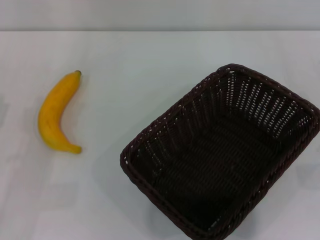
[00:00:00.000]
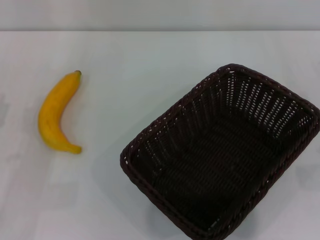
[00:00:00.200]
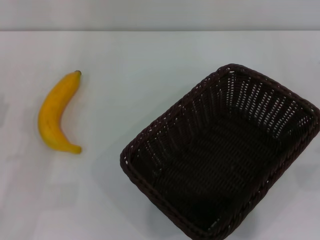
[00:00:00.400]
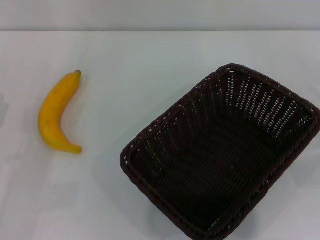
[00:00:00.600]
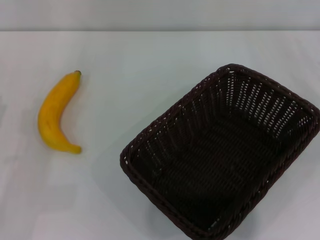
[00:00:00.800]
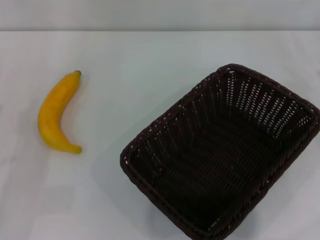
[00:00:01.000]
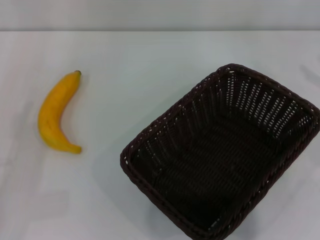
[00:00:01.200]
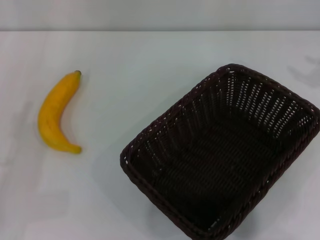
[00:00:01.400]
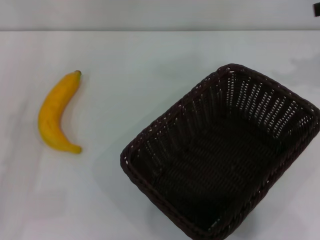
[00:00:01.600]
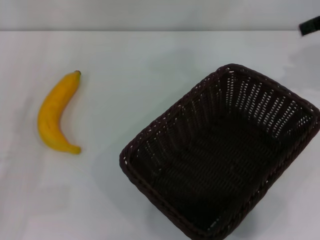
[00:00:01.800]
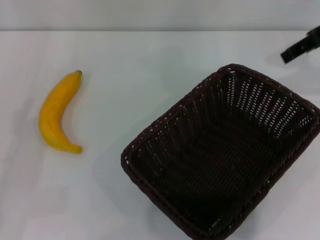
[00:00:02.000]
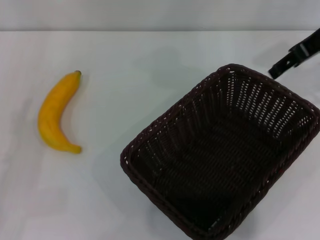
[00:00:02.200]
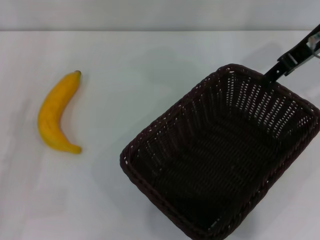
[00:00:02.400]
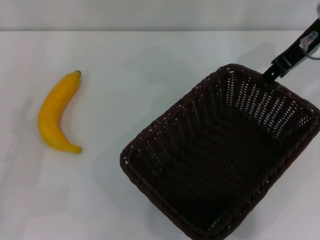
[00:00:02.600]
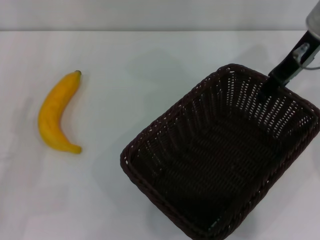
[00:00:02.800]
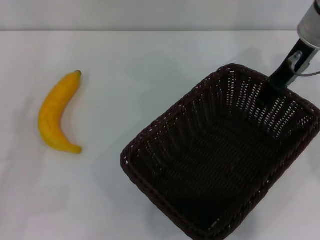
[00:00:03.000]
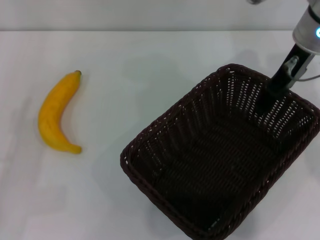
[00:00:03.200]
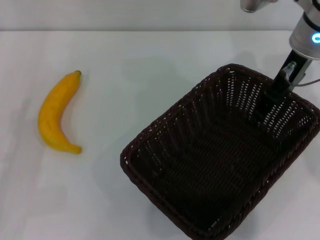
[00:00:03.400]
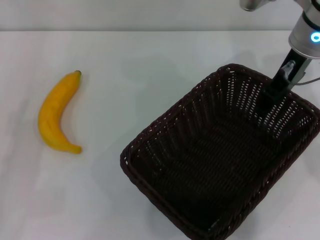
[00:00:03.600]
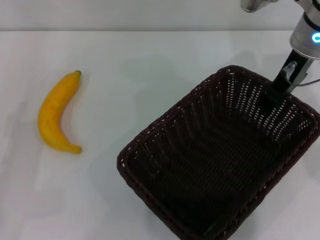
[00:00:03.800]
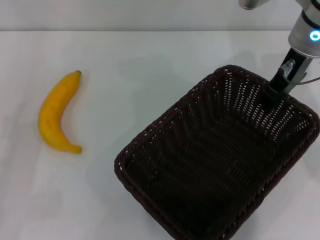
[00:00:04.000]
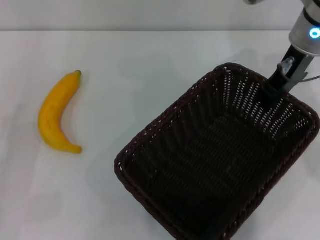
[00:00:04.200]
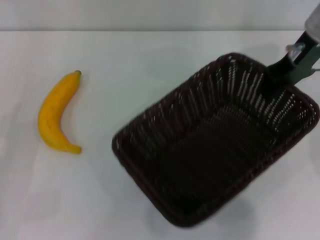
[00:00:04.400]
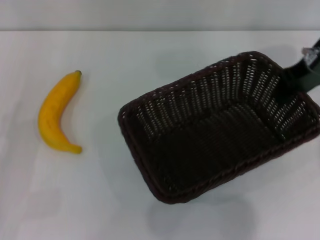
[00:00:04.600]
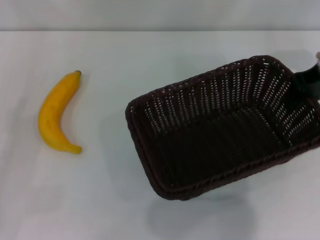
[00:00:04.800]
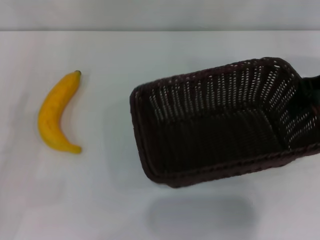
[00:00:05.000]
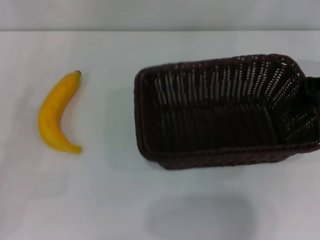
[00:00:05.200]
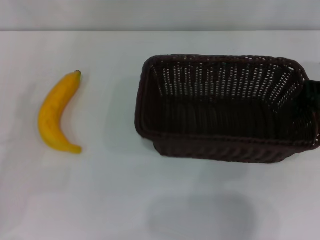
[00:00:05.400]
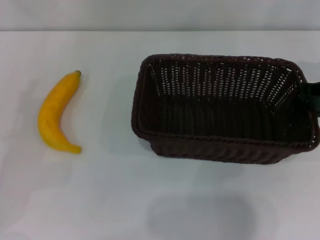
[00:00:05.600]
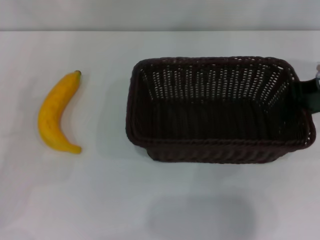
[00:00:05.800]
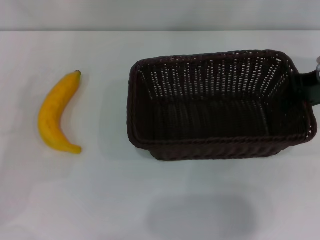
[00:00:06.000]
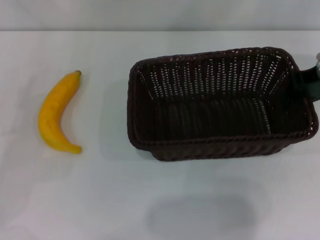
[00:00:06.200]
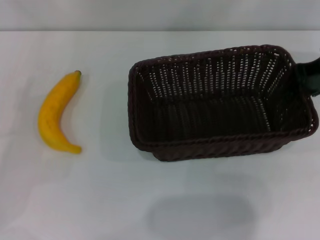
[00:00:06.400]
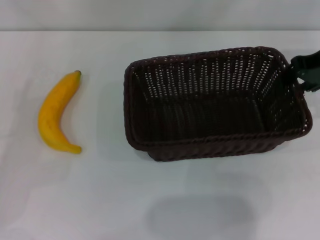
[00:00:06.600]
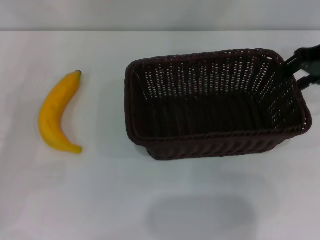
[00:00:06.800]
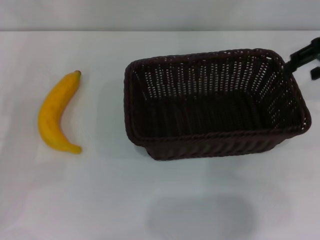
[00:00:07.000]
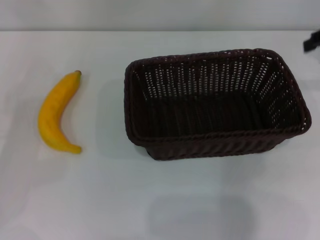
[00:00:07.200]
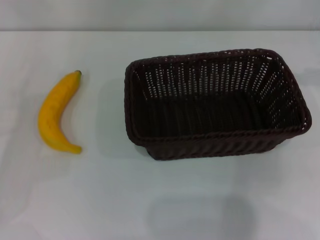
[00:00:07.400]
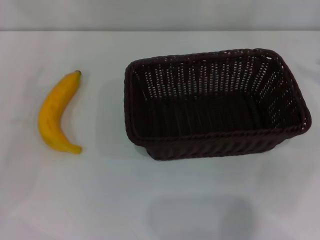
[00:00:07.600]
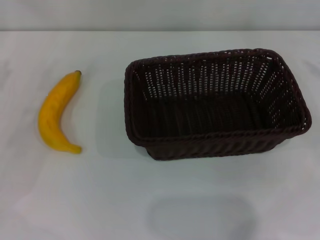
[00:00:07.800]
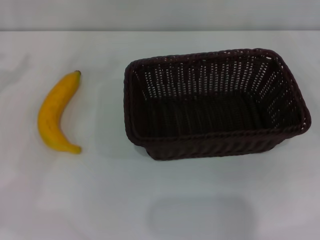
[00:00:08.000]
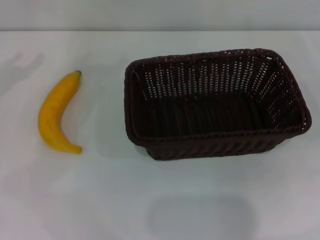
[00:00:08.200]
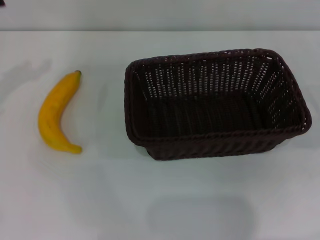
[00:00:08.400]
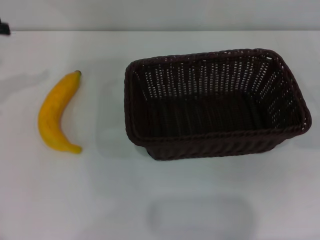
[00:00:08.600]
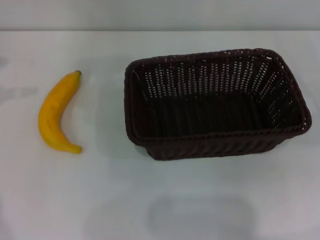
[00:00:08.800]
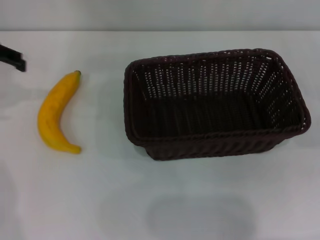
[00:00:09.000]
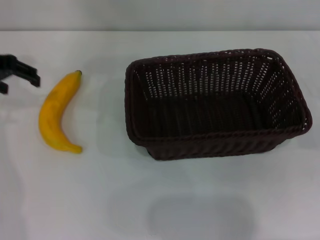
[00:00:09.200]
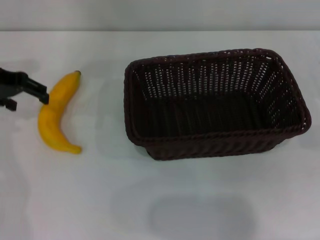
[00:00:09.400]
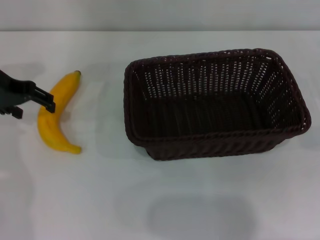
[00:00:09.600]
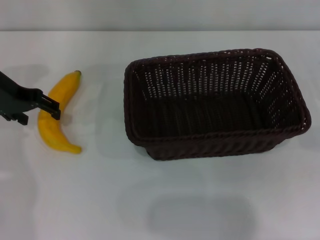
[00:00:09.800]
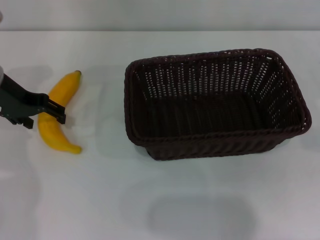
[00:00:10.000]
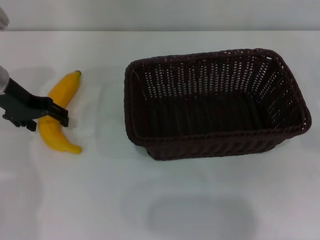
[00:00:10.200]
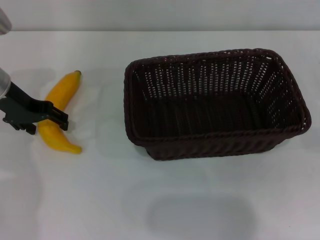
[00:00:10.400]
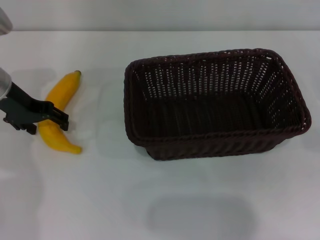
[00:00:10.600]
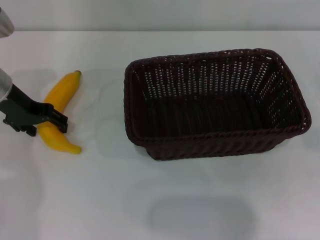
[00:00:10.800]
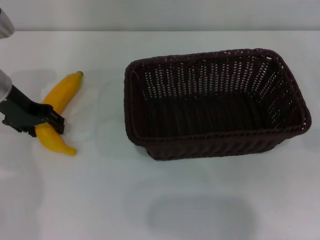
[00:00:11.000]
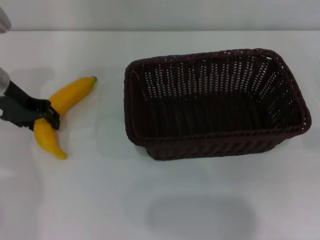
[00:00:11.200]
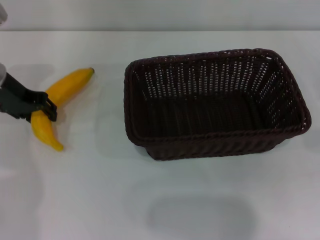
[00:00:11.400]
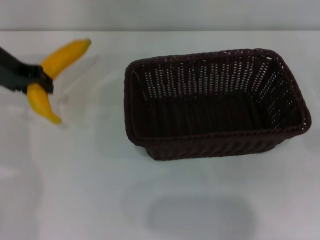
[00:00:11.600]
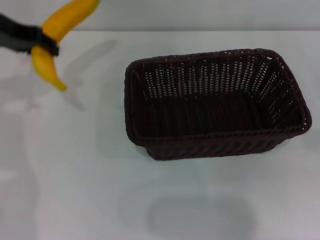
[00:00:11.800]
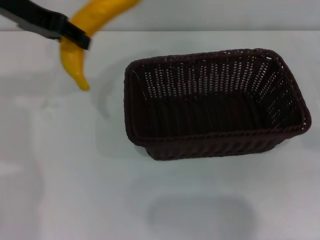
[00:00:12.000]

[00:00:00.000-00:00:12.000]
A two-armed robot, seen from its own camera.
Step, 00:00:00.000 to 00:00:04.600: Pick up the dark basket with the right gripper.
Step, 00:00:05.000 to 00:00:07.000: Place the dark basket in the center of view with the right gripper.
Step, 00:00:07.200 to 00:00:11.600: Pick up the banana with the left gripper.
00:00:01.600 to 00:00:03.000: The right gripper moves to the left, downward and forward, about 15 cm.
00:00:03.000 to 00:00:04.400: The right gripper closes its fingers.
00:00:04.400 to 00:00:06.000: The left gripper shifts some 5 cm forward. The right gripper shifts some 5 cm to the right.
00:00:06.000 to 00:00:07.600: The right gripper is displaced to the right by roughly 10 cm, and opens.
00:00:07.600 to 00:00:09.000: The left gripper travels upward, forward and to the right by approximately 20 cm.
00:00:09.000 to 00:00:10.400: The left gripper heads downward and to the right, covering some 10 cm.
00:00:10.400 to 00:00:12.000: The left gripper moves upward, approximately 15 cm, and closes up.

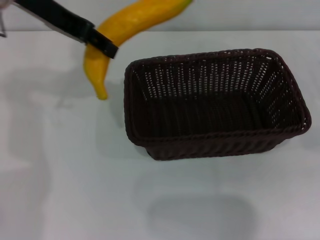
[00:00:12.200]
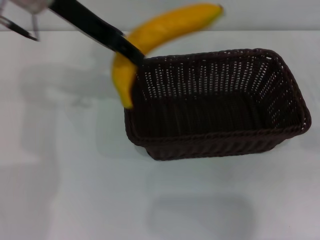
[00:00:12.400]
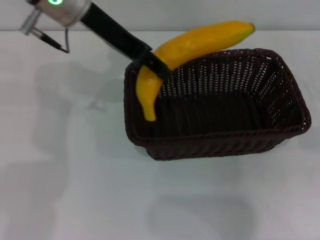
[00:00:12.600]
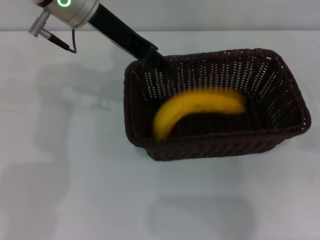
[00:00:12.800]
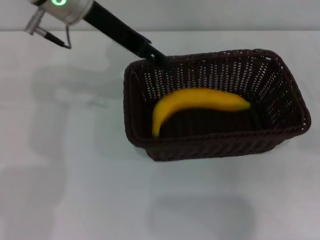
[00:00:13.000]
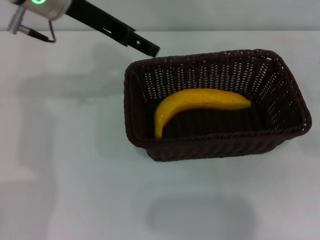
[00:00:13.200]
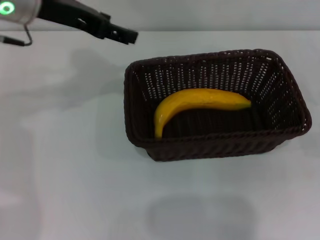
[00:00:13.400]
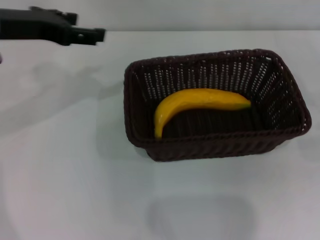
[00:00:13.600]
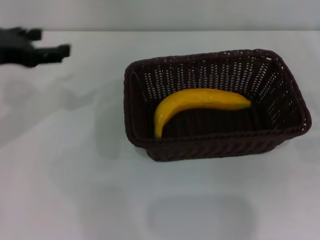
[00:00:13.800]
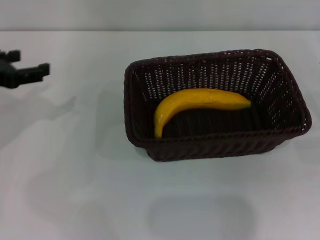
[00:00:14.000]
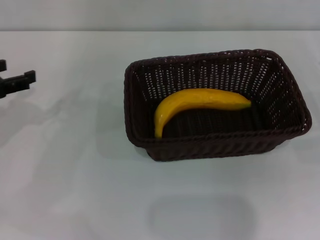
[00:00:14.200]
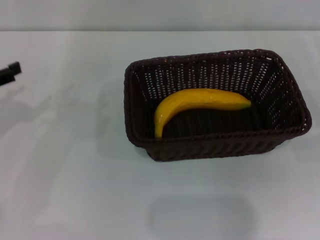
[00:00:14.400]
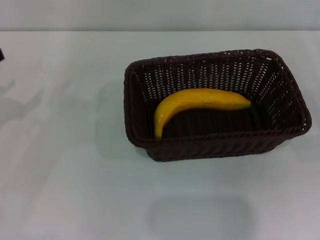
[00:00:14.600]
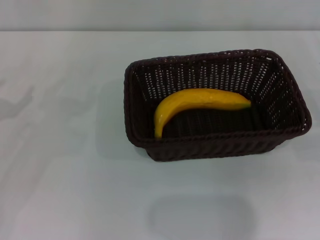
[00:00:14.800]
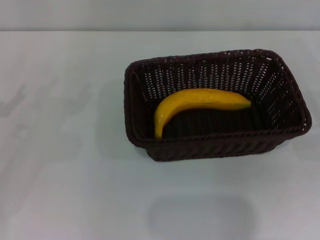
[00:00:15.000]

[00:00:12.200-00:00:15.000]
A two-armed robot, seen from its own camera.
Step, 00:00:12.200 to 00:00:13.400: Place the banana into the dark basket with the left gripper.
00:00:12.200 to 00:00:13.600: The left gripper is displaced downward and to the left by some 10 cm, and opens up.
00:00:13.600 to 00:00:15.000: The left gripper travels to the left, downward and backward by roughly 20 cm.
